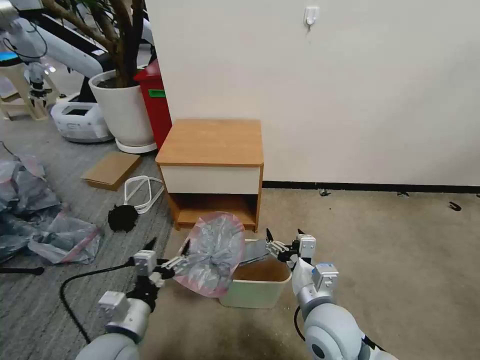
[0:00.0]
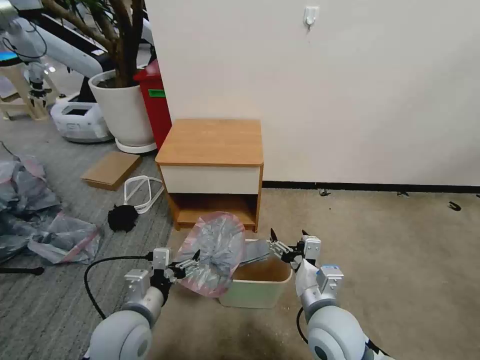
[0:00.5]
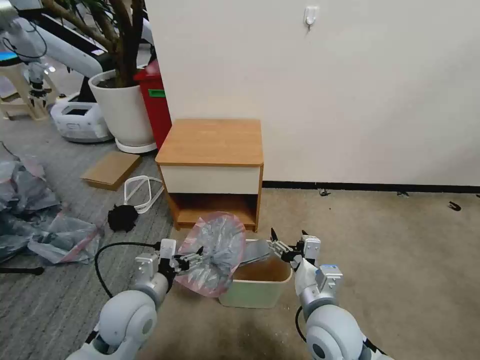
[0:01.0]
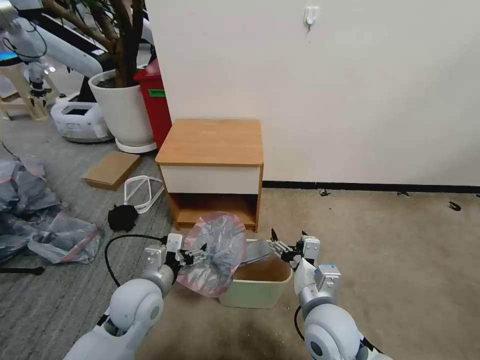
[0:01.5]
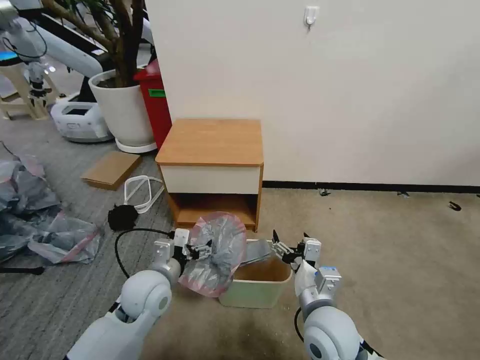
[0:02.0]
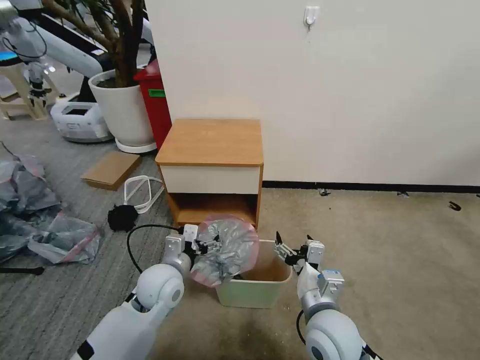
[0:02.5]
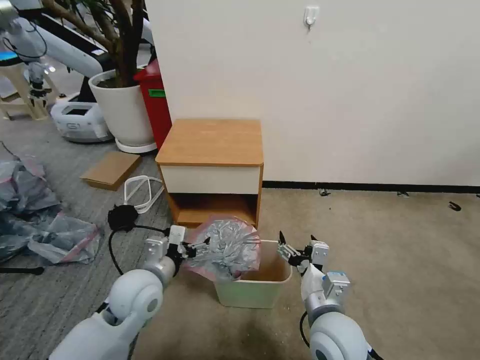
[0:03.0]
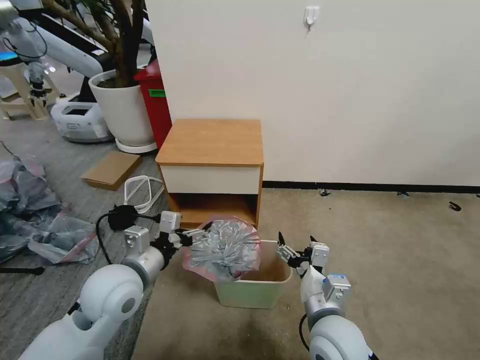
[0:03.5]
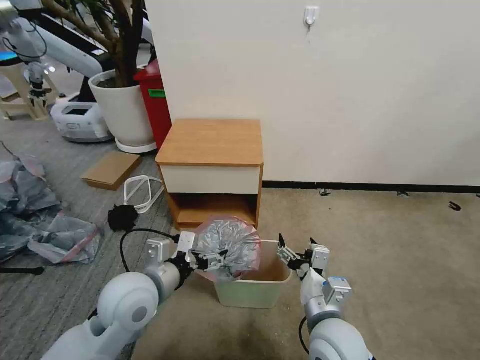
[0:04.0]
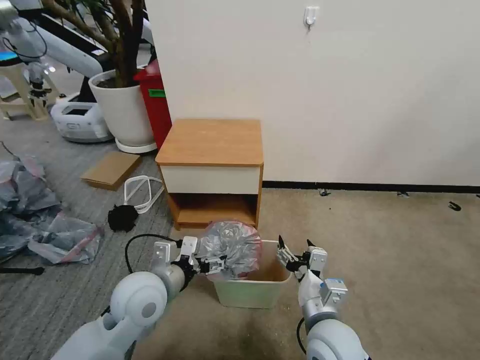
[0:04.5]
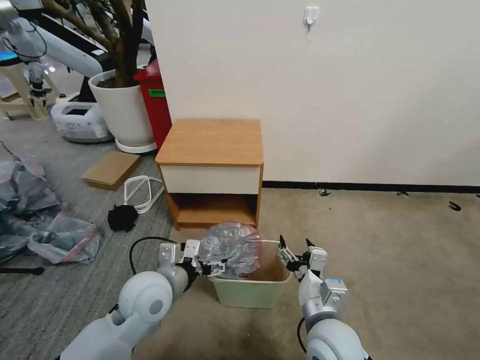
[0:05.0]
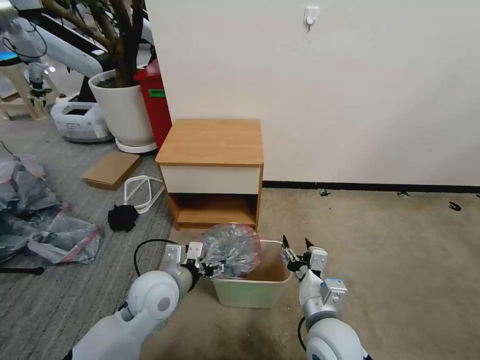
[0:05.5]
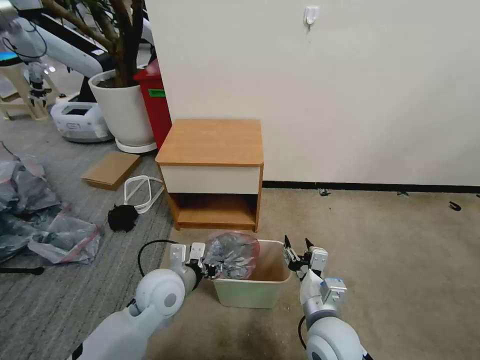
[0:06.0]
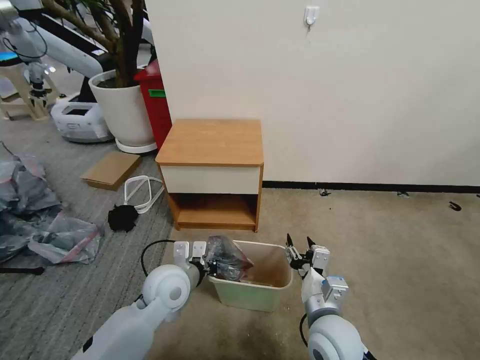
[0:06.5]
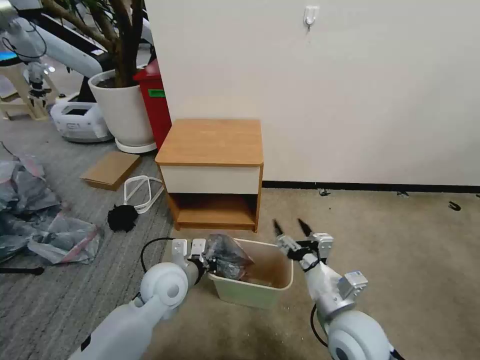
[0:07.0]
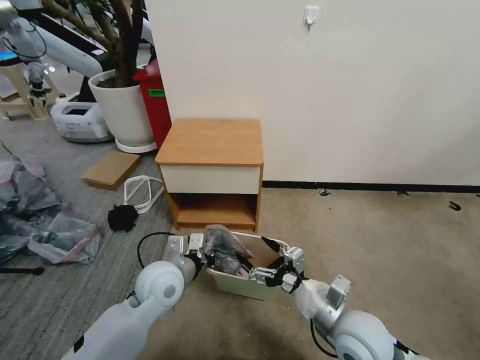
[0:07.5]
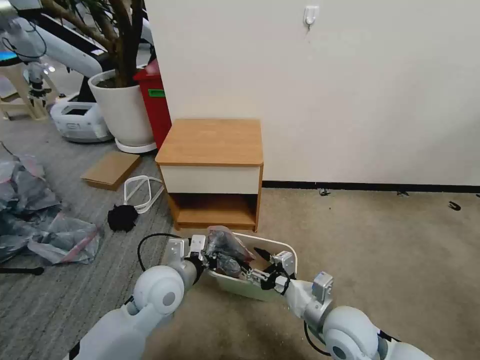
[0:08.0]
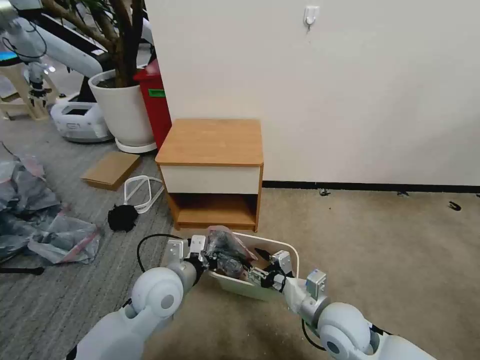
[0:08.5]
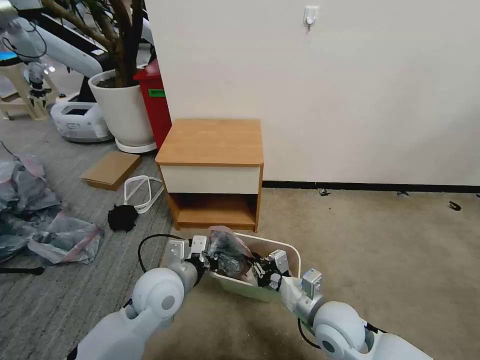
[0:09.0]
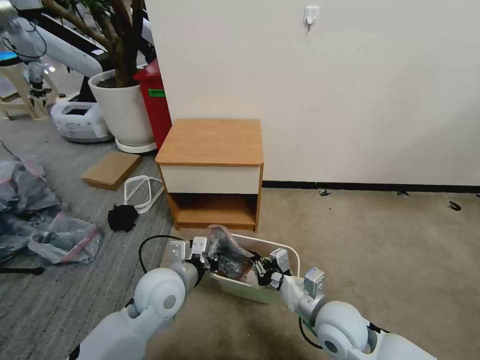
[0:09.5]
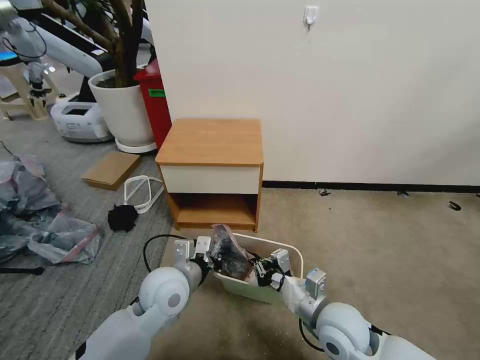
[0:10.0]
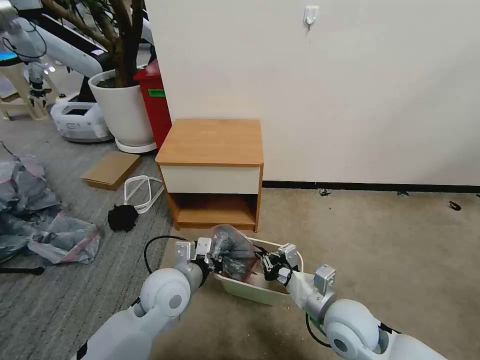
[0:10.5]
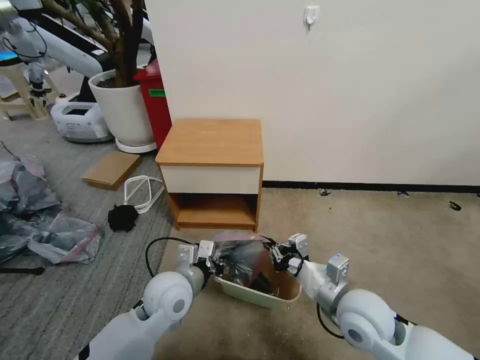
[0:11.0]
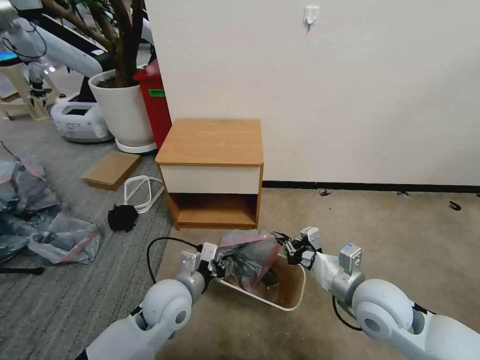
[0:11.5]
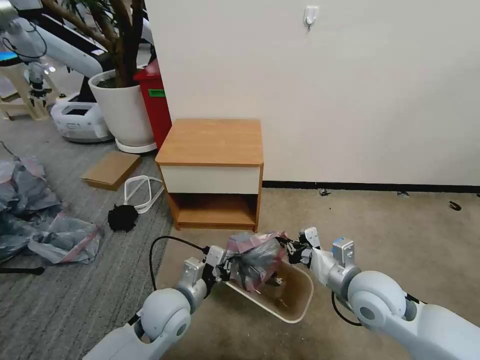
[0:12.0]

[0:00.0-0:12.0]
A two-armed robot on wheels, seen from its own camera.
Task of the whole recording: Pick up the garbage bag from the table and place it over the trash can.
0.0 to 2.0 s: The left gripper shifts roughly 10 cm forward.
2.0 to 4.0 s: The left gripper is displaced upward by roughly 10 cm.
4.0 to 6.0 s: The left gripper goes about 5 cm downward, and closes its fingers.
6.0 to 8.0 s: The left gripper closes its fingers.
8.0 to 10.0 s: The right gripper closes.
10.0 to 12.0 s: The right gripper travels to the right and upward by approximately 10 cm; the left gripper moves about 5 cm.

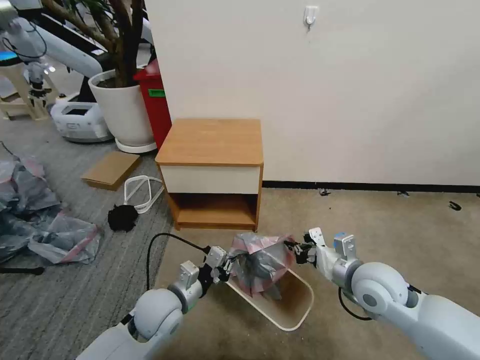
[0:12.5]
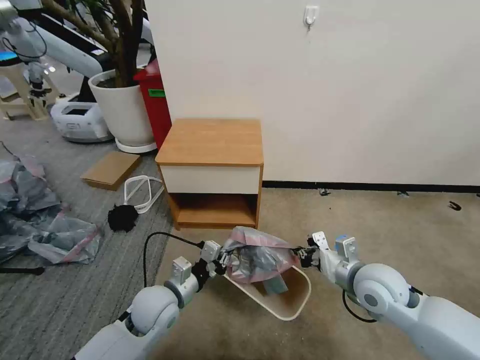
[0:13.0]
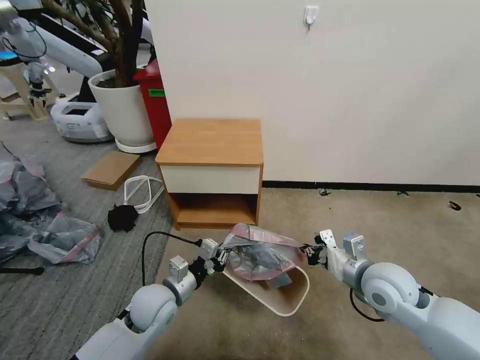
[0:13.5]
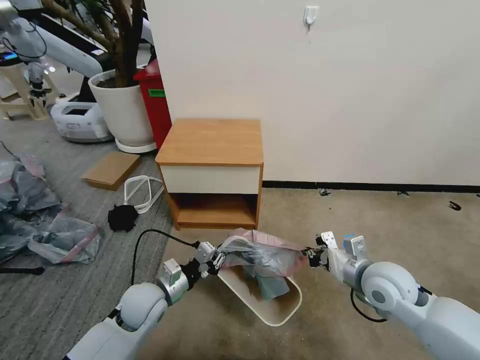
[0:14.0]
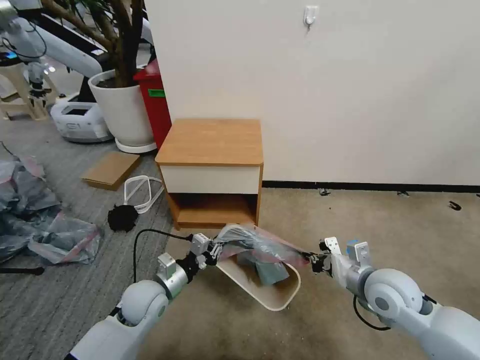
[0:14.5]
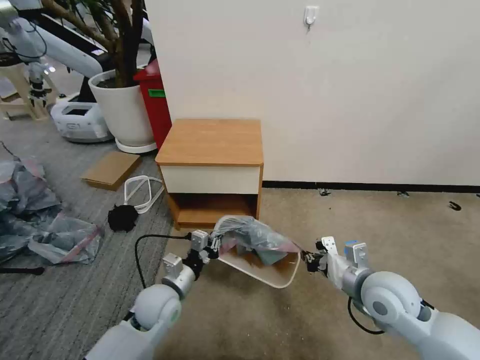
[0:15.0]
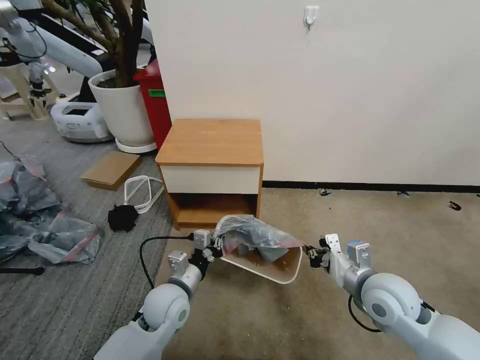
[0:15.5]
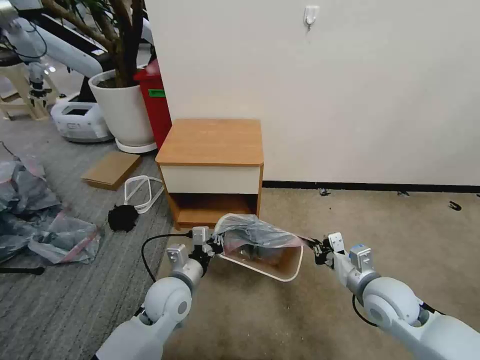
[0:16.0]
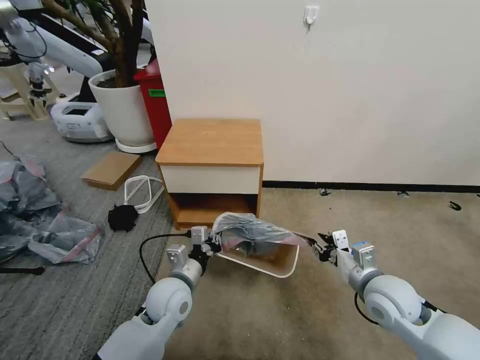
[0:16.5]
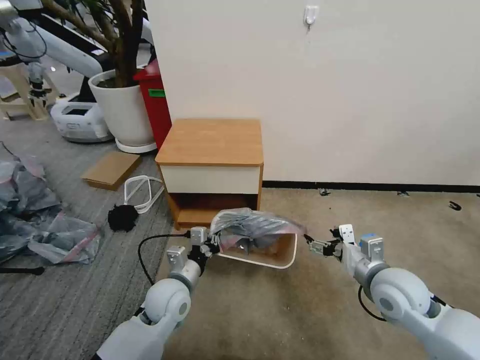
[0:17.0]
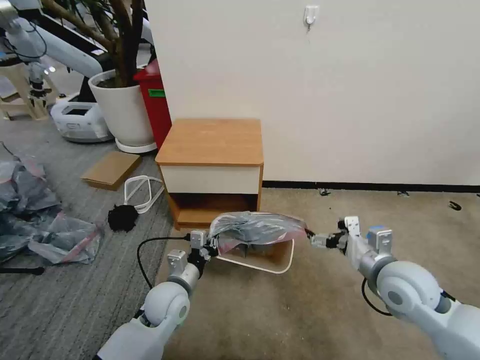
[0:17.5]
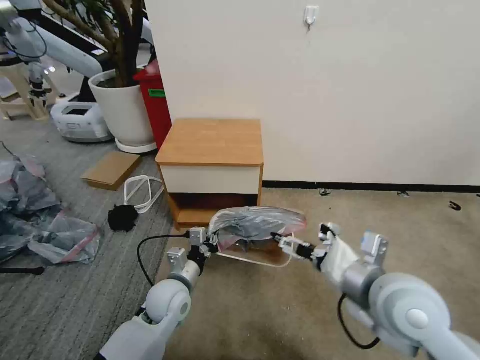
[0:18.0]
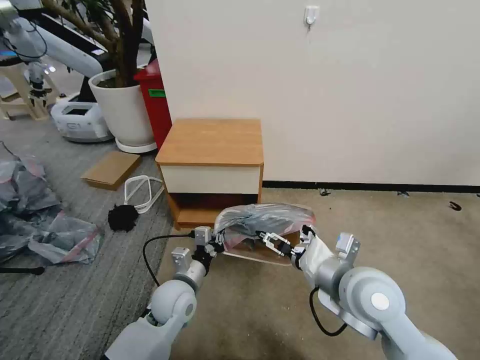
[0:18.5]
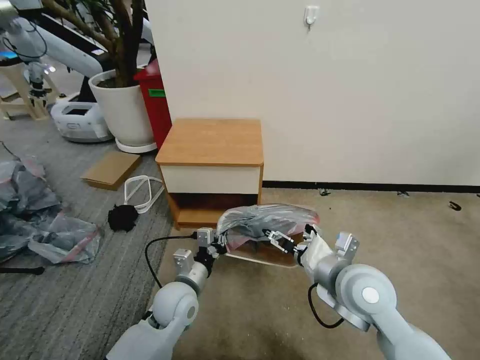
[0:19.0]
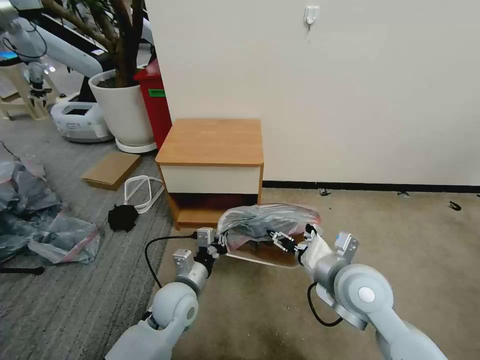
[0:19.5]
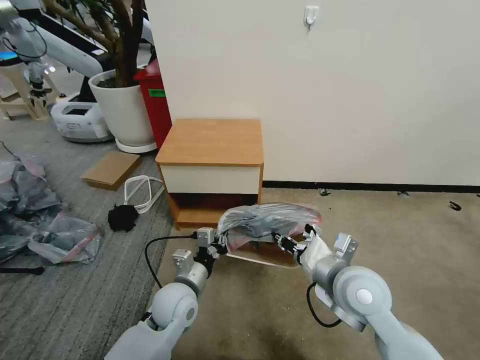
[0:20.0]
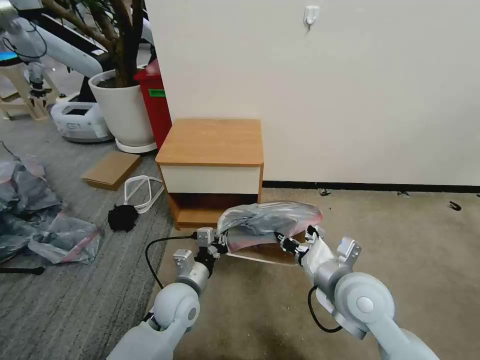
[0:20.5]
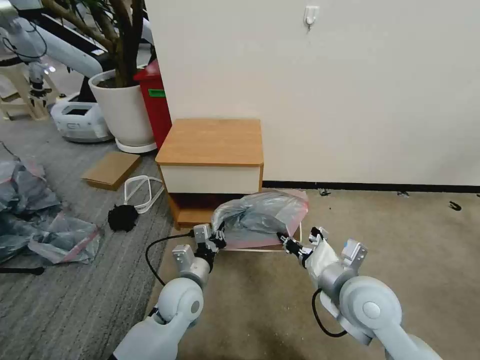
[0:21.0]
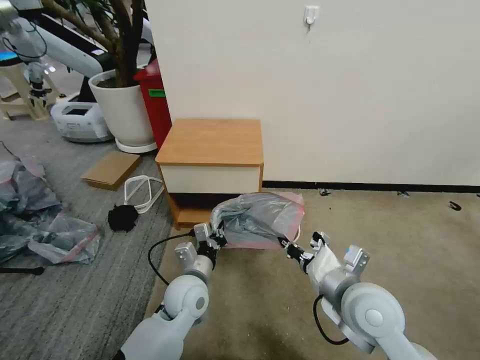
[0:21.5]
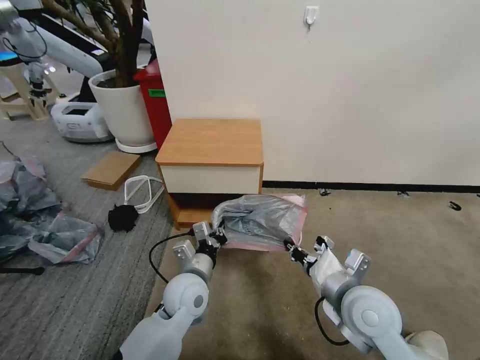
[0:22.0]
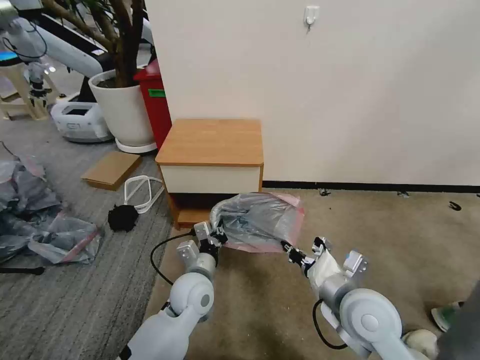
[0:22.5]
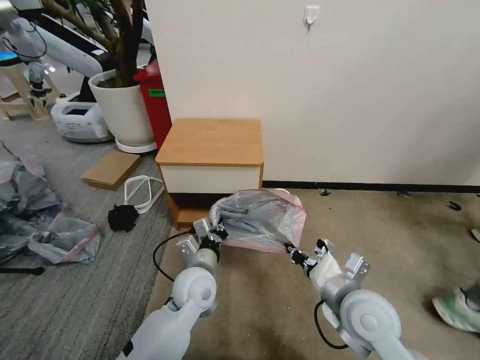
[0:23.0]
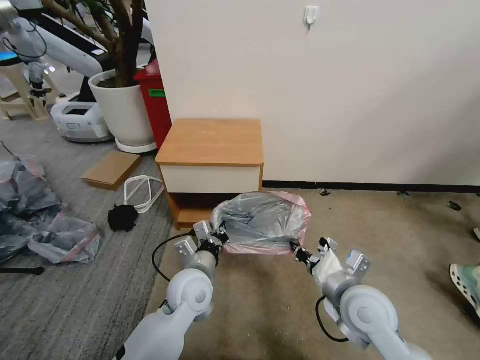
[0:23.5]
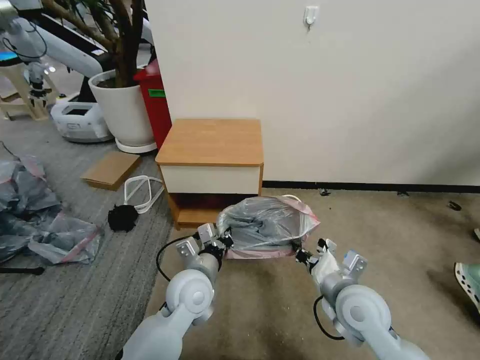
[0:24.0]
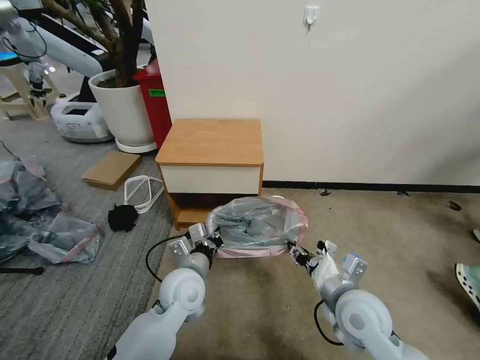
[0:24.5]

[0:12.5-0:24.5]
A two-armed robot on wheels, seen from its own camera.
Task of the whole recording: Pick up the garbage bag from the table and place it over the trash can.
12.5 to 14.5 s: The left gripper changes place by approximately 5 cm.
14.5 to 16.5 s: The left gripper goes some 5 cm to the right.
16.5 to 18.5 s: The right gripper moves upward and to the left, roughly 15 cm, and opens.
18.5 to 20.5 s: The right gripper closes up.
20.5 to 22.5 s: There are only small adjustments of the grippers.
22.5 to 24.5 s: The right gripper opens.

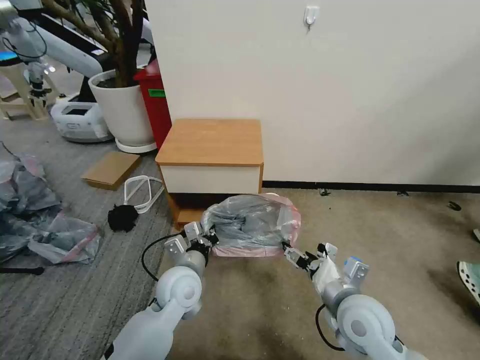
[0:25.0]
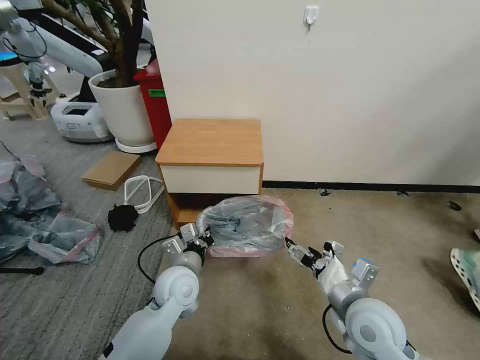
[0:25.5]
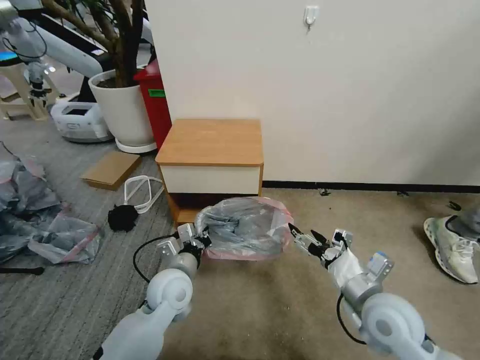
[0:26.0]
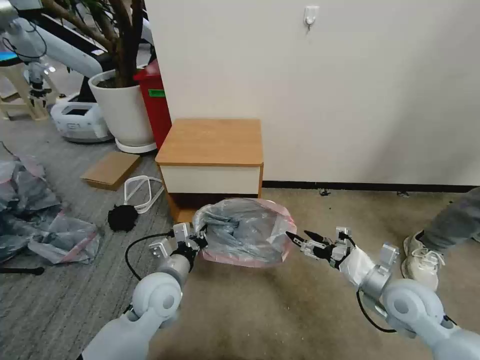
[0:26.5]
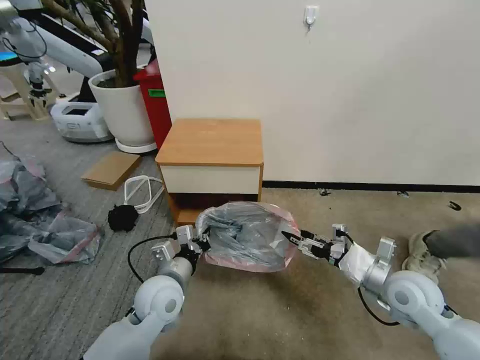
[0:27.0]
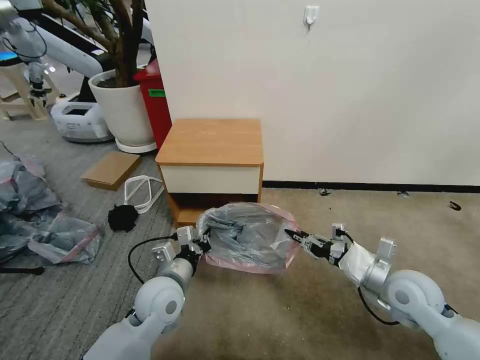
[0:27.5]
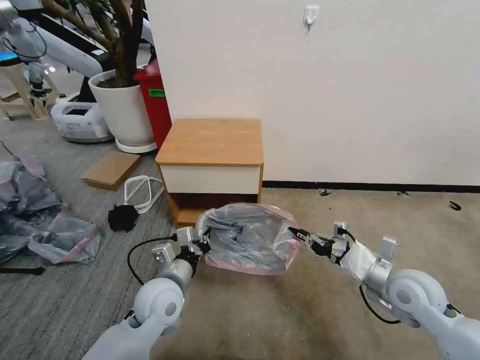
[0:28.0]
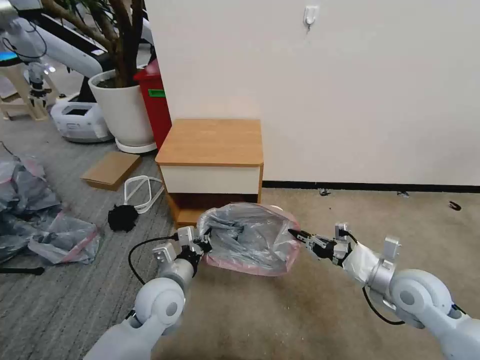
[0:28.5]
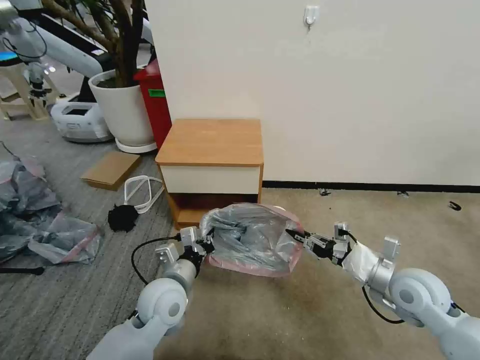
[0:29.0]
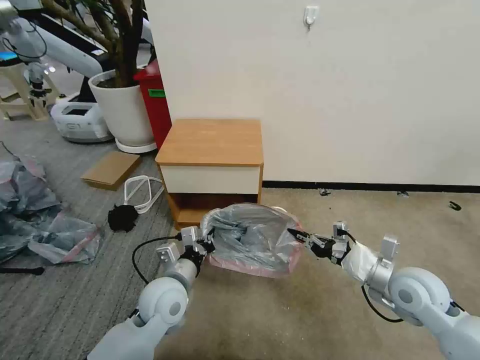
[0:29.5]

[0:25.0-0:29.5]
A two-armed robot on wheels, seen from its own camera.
Task of the whole recording: Pick up the garbage bag from the table and place it over the trash can.
25.0 to 27.0 s: The right gripper heads to the right and forward, covering some 15 cm.
27.0 to 29.5 s: The right gripper closes its fingers.
